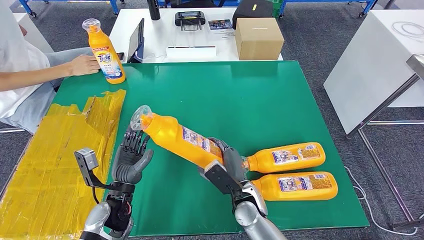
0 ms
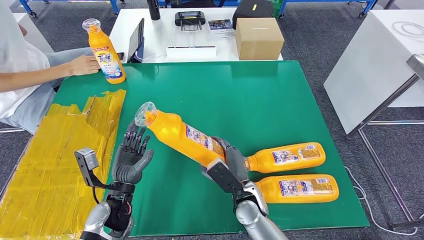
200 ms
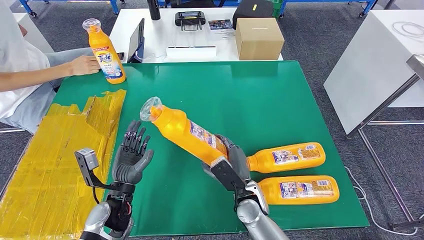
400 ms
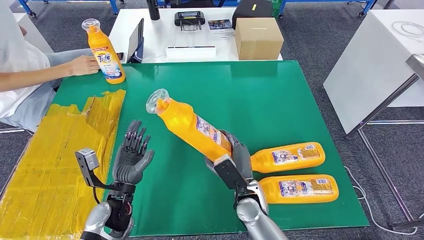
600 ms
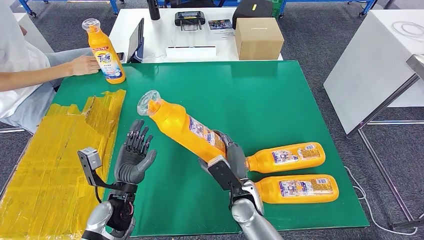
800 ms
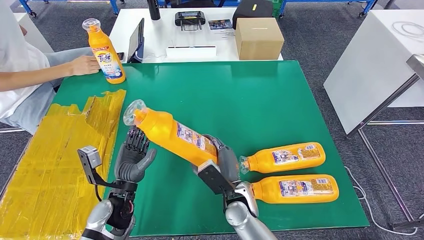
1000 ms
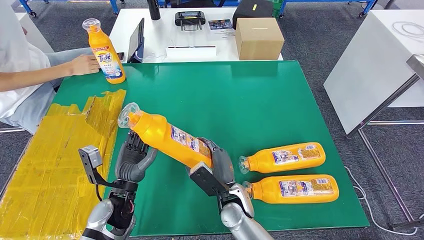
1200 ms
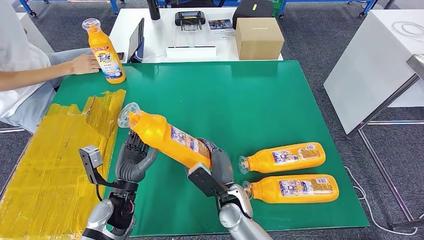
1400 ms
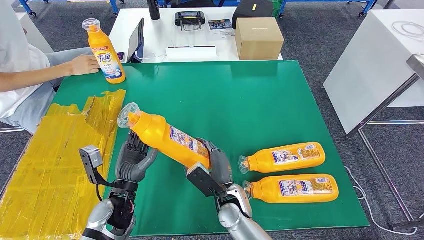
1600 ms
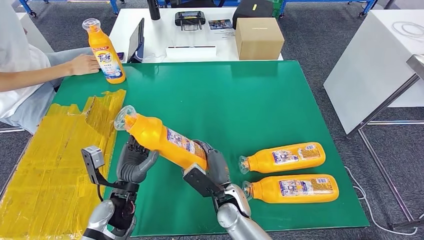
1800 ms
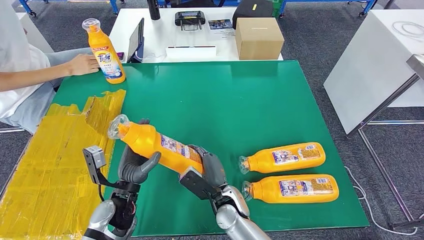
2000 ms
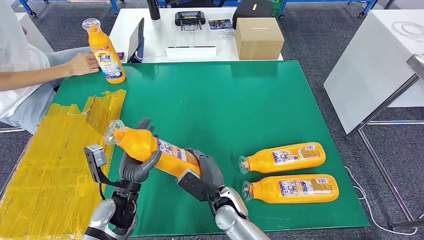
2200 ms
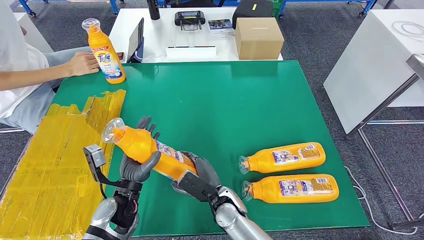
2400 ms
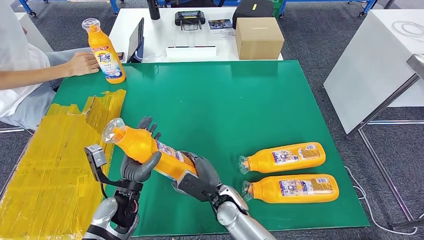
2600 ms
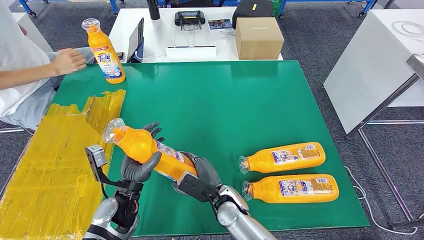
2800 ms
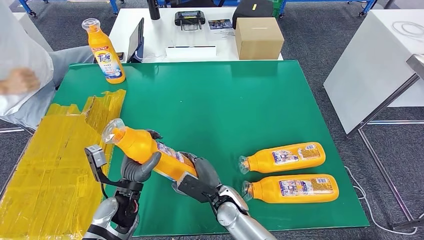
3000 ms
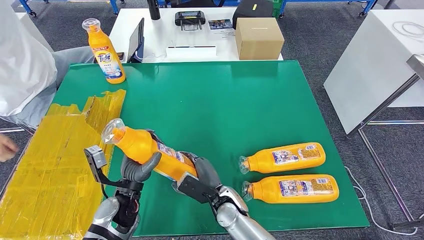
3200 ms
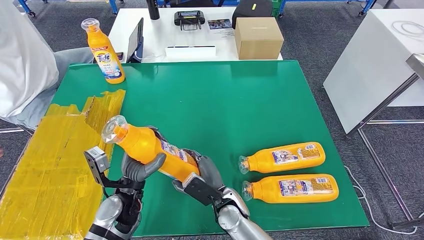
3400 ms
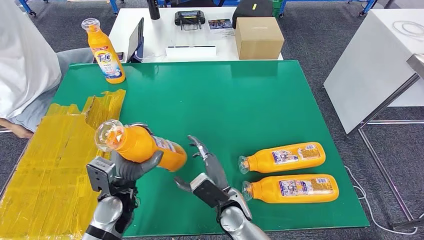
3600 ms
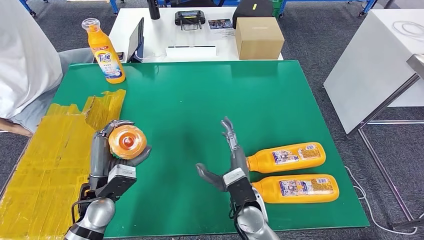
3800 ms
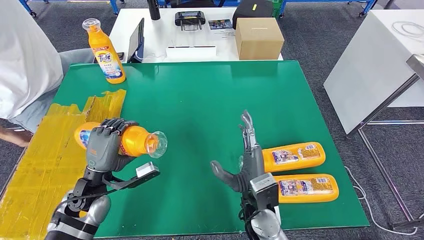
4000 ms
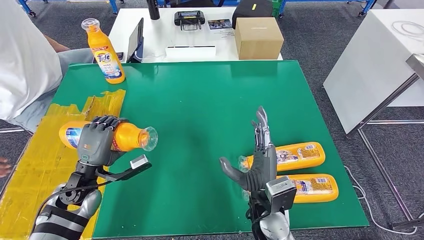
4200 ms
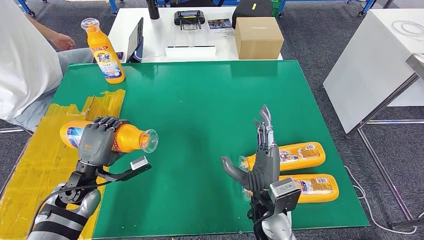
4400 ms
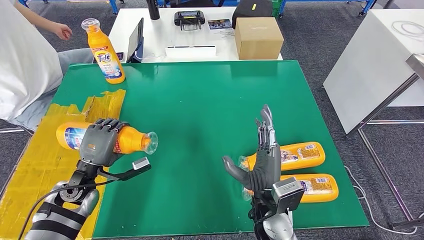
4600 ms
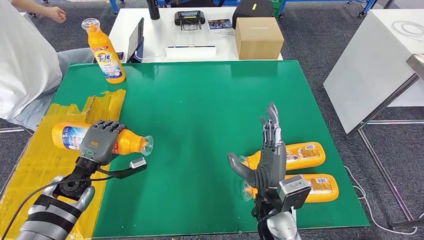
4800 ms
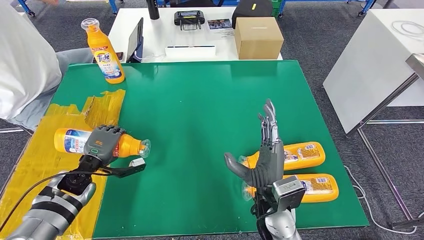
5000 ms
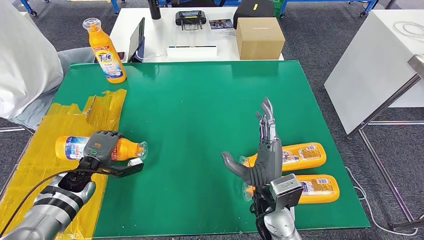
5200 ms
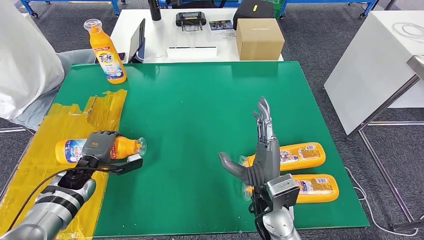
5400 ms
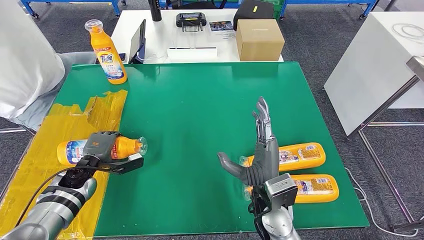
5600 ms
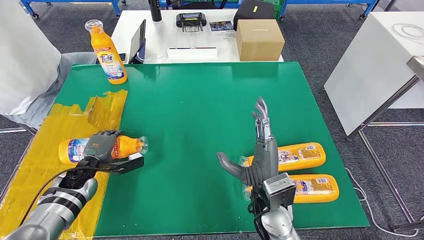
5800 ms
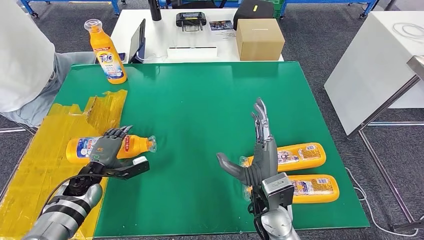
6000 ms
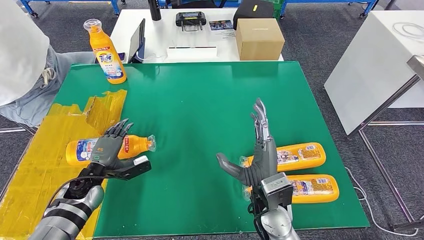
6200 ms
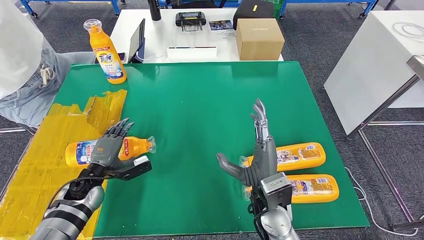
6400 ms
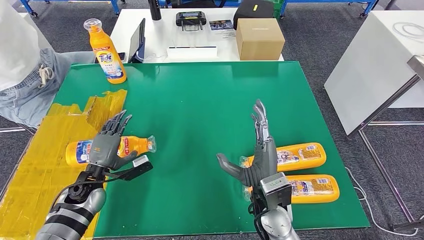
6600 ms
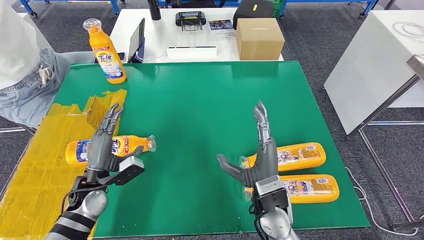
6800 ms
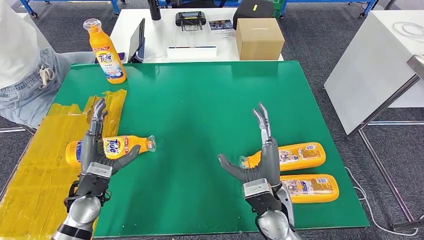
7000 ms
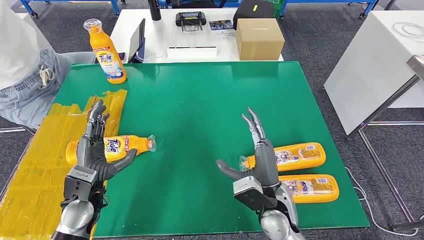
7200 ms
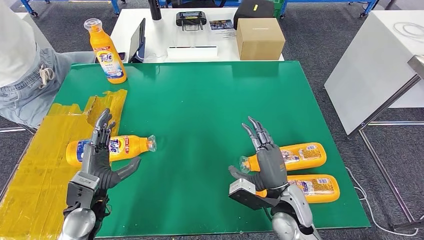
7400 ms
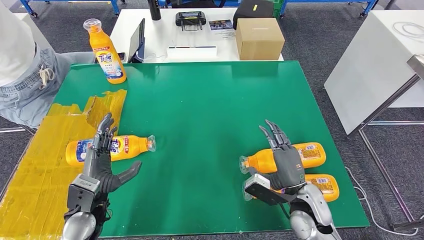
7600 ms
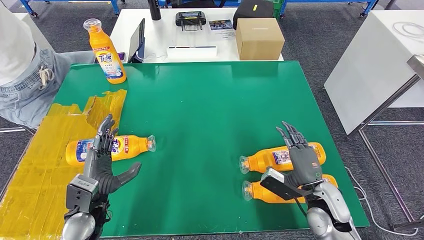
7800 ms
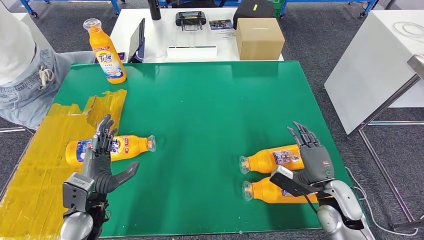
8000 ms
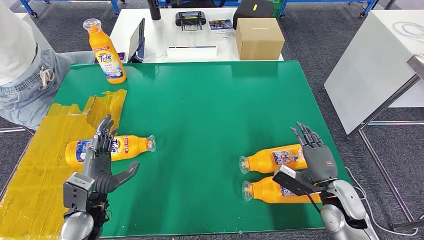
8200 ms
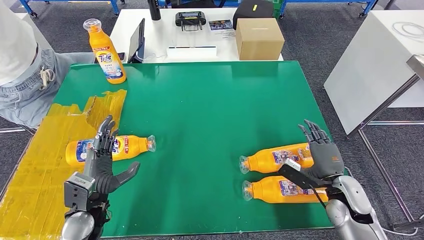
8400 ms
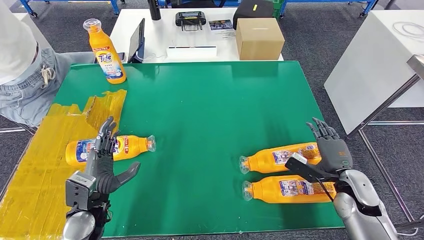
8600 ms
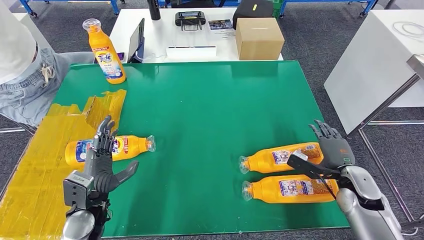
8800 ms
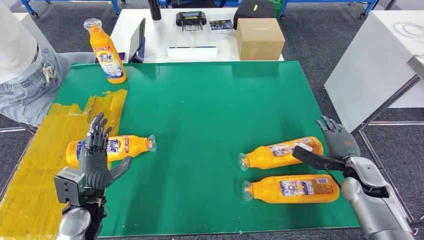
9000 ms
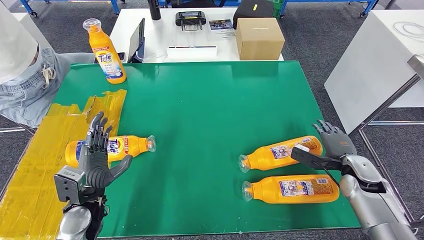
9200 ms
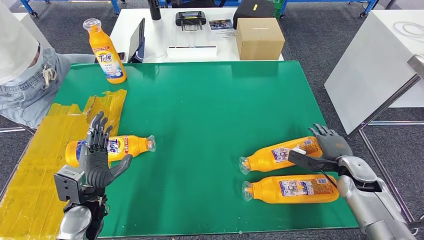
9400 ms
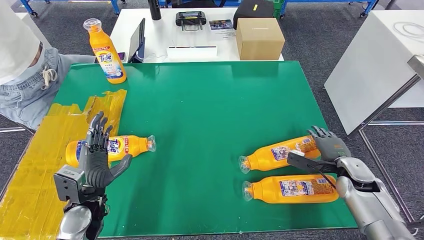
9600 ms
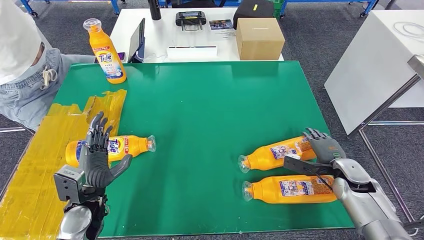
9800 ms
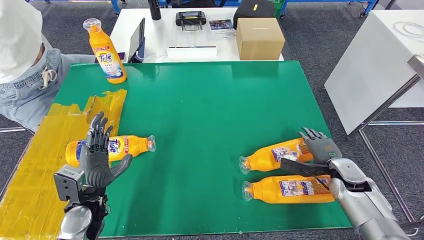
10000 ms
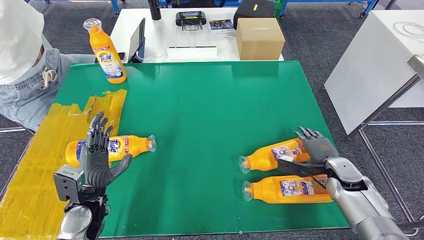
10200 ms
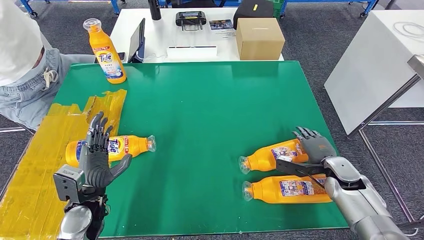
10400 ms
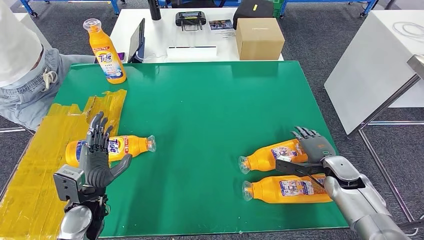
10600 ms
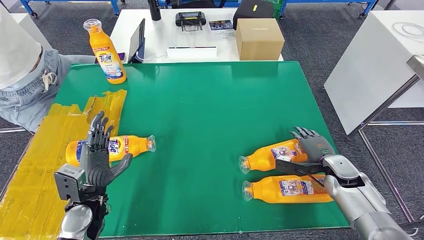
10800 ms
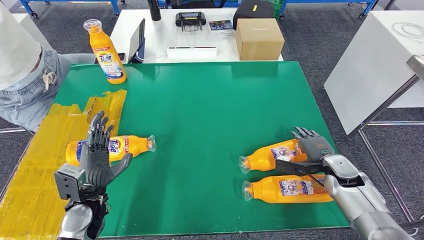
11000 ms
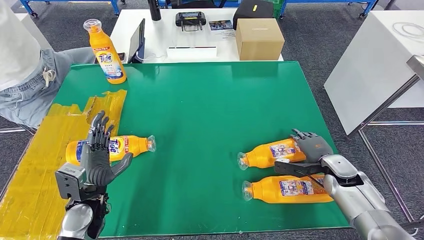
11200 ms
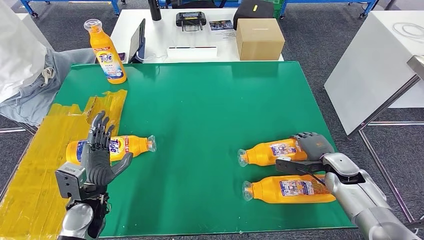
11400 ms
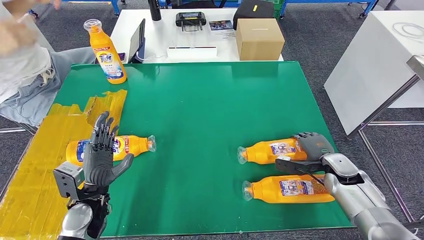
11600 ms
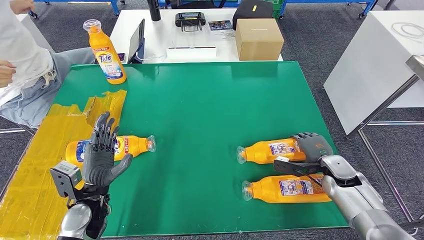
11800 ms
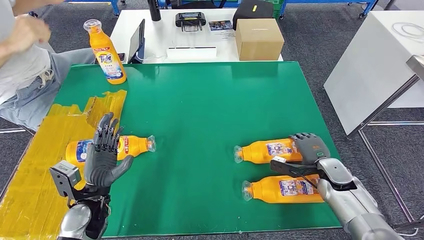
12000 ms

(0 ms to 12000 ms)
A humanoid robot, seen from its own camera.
Step, 0 ms - 6800 ms: Flip the bottle to face forward.
0 ms - 1600 ms: The hands move only a little.
4400 ms - 6000 ms: The left hand heads downward, covering about 5 cm.
6000 ms - 7600 ms: The right hand goes about 10 cm to the right. The left hand is displaced backward, upward and to the right by approximately 15 cm.
7600 ms - 9000 ms: The right hand is displaced to the right and forward by some 20 cm.
9000 ms - 10400 ms: The hands stay close to where they were, moving slightly.
10400 ms - 12000 ms: The hands move only a little.

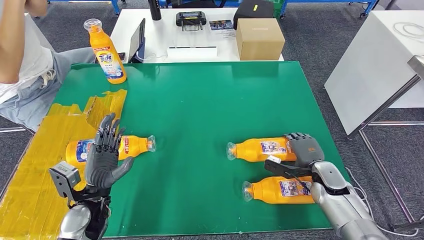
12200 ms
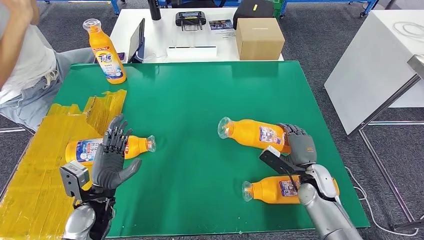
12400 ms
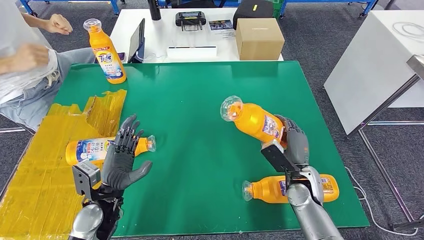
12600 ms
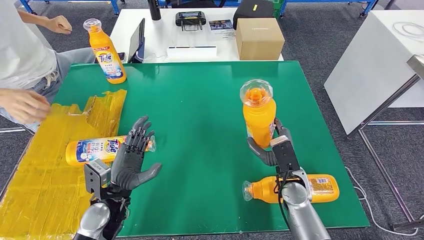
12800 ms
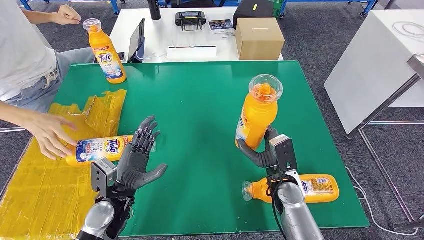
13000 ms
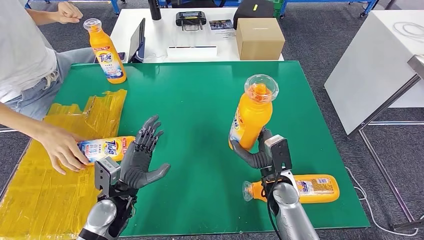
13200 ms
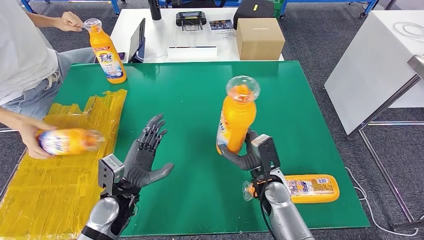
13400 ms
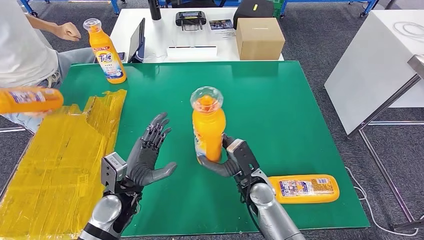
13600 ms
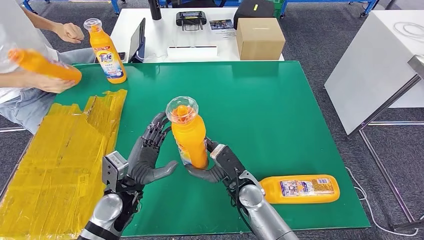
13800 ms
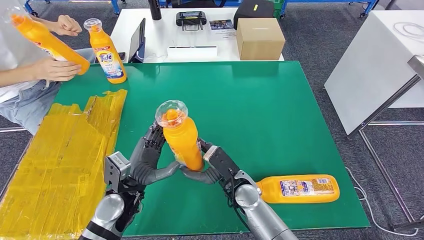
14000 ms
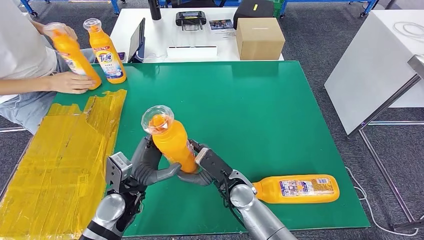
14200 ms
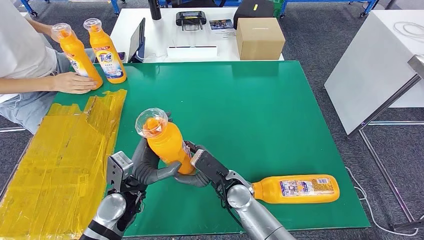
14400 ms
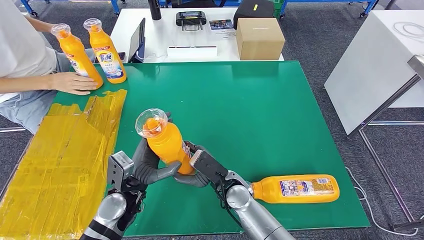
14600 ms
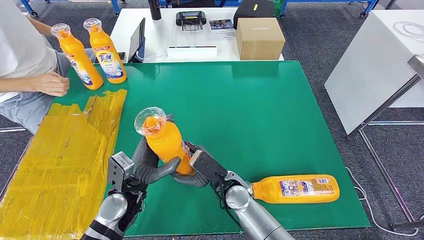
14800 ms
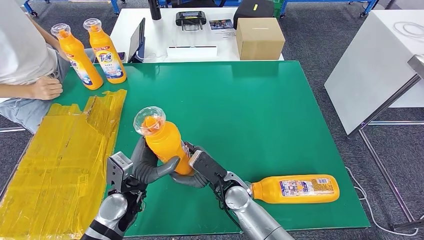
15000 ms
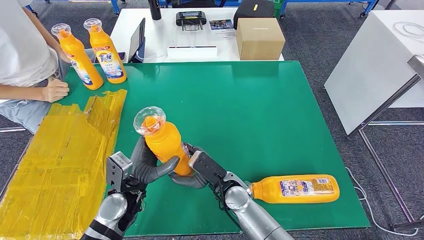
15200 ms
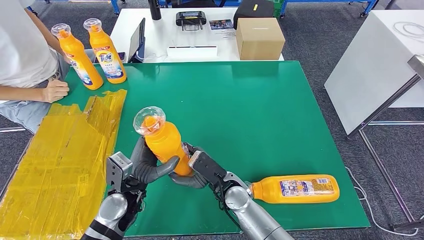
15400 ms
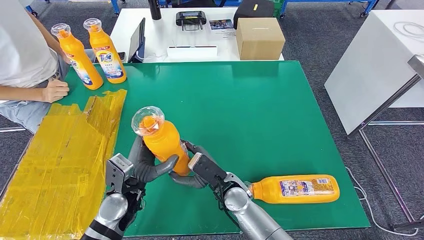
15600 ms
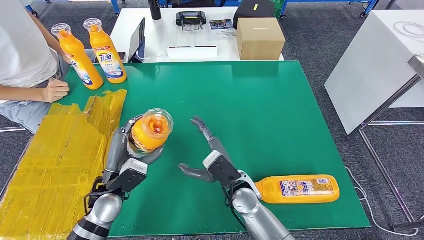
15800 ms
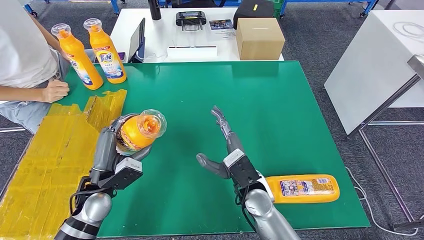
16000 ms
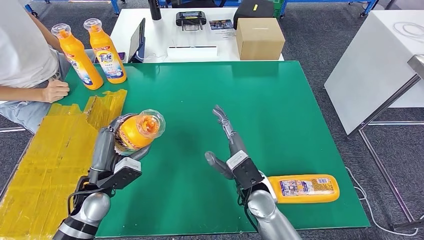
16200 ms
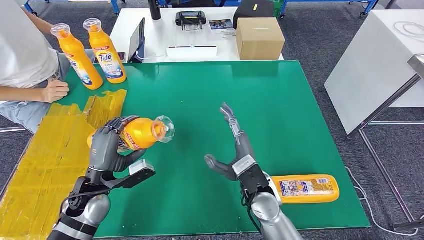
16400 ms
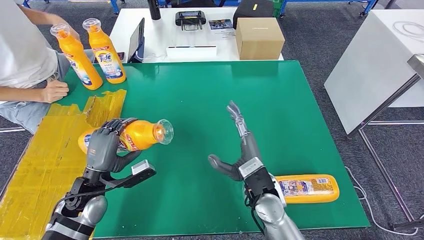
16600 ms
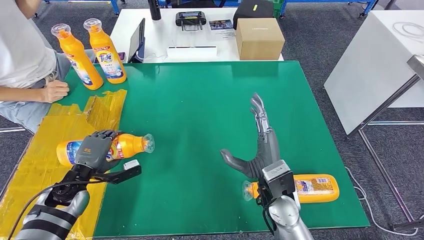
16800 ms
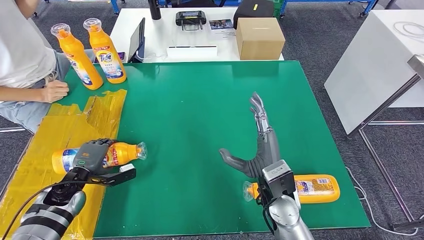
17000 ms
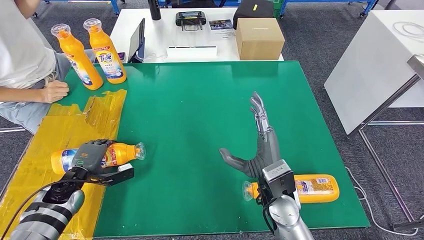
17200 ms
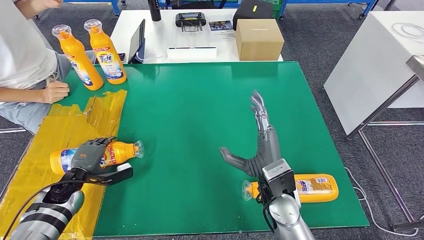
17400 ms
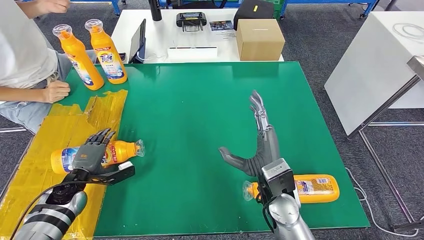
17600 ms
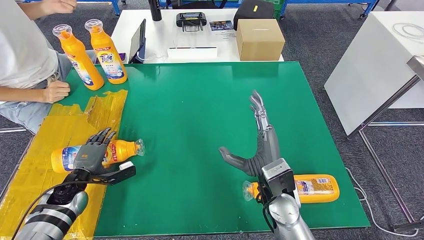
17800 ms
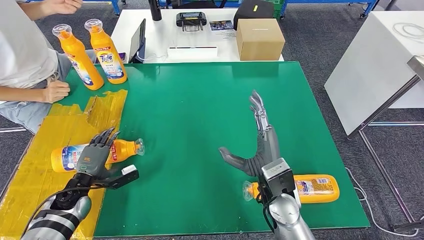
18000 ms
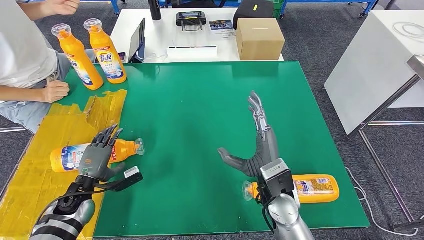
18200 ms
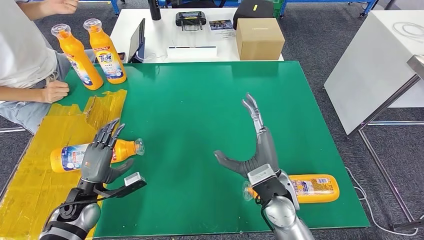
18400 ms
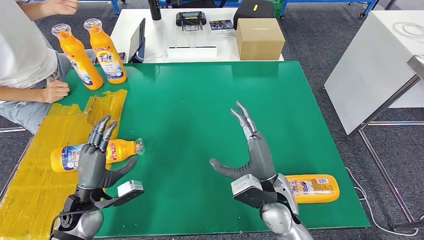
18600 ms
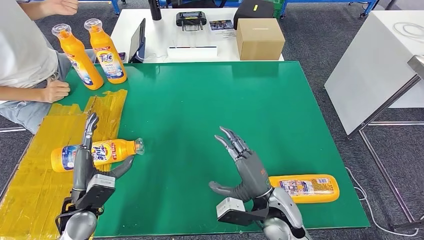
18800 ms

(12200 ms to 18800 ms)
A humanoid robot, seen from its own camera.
Step, 13600 ms - 18400 ms: Flip the bottle to face forward.
13800 ms - 15400 ms: The hands move only a little.
15400 ms - 17200 ms: The left hand goes about 20 cm to the left. The right hand shifts about 10 cm to the right and upward.
17200 ms - 18800 ms: The left hand travels to the right, backward and upward by some 15 cm.
